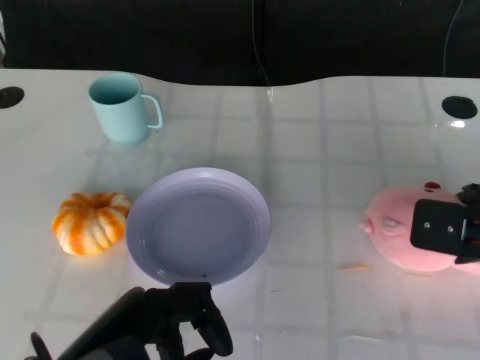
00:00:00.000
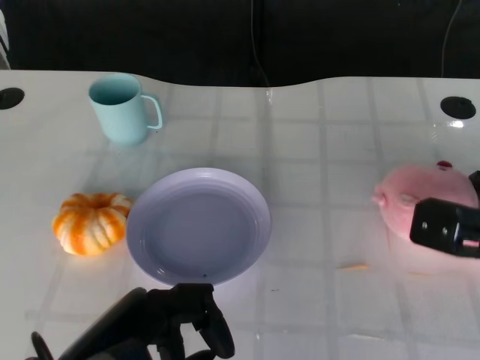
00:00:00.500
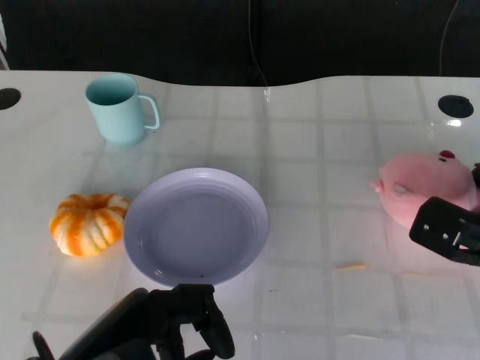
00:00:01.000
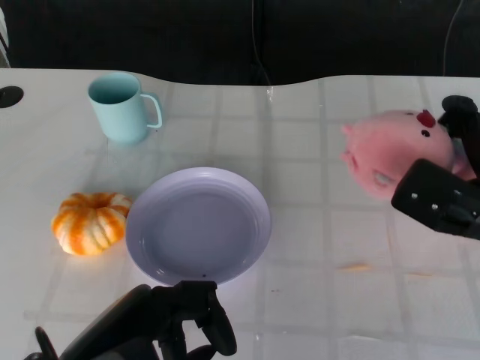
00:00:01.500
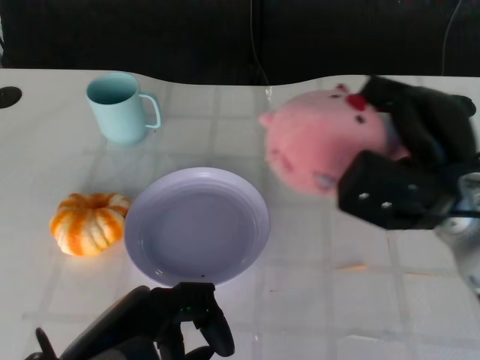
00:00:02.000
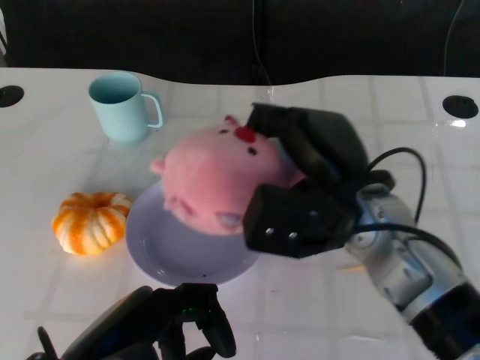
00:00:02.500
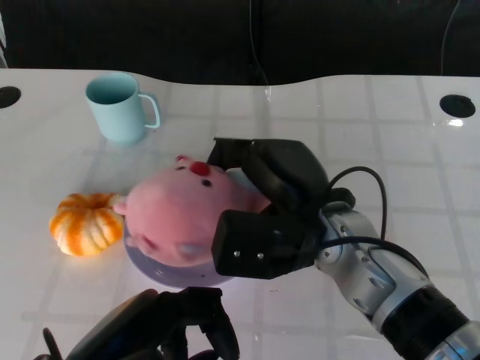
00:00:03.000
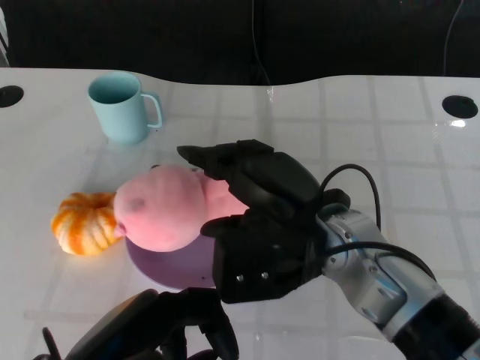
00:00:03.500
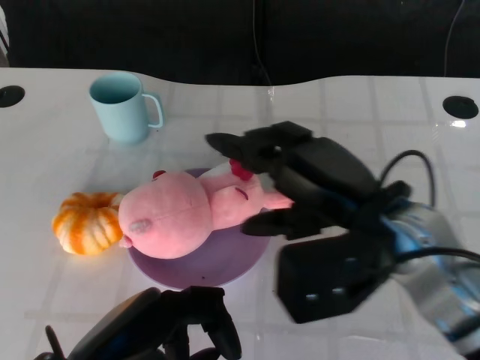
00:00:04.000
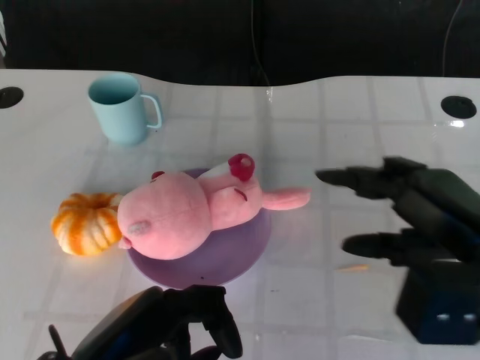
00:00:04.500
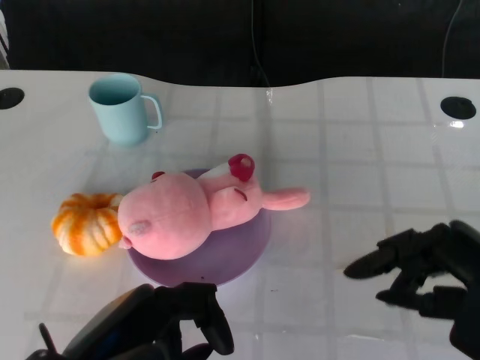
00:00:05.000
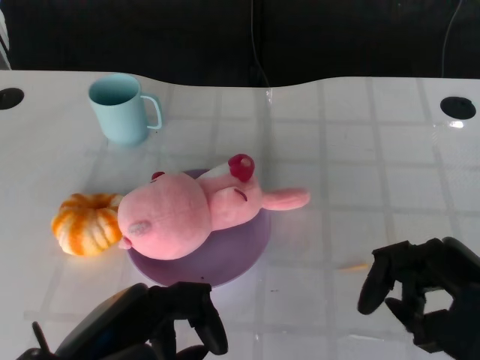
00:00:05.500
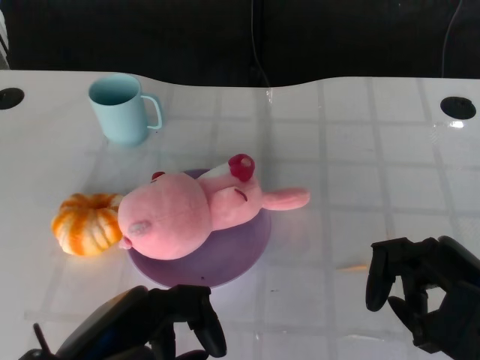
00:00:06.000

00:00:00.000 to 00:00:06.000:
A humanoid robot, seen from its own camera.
Task of the whole recording: Pick up the doll on the other side of the plate and place it into the plate.
Step, 00:00:02.000 to 00:00:04.000: Place the pink doll into the plate with the right gripper.
00:00:00.000 to 00:00:02.000: The right hand moves to the left, some 10 cm, and moves roughly 5 cm downward and comes back.
00:00:02.000 to 00:00:04.000: The right hand heads to the left, covering about 5 cm.
00:00:04.000 to 00:00:06.000: The right hand heads to the right and backward, covering about 15 cm.

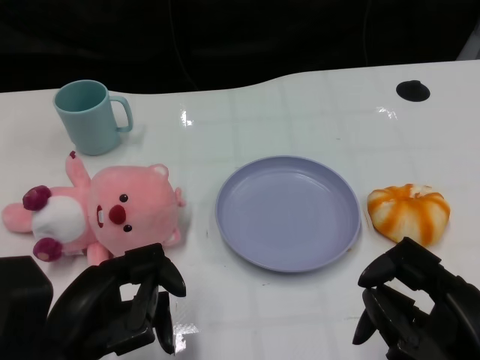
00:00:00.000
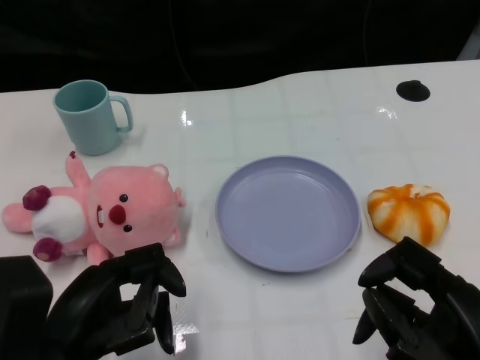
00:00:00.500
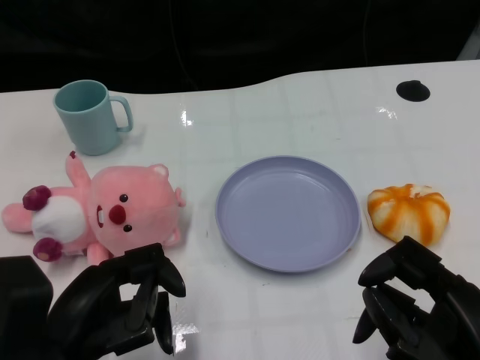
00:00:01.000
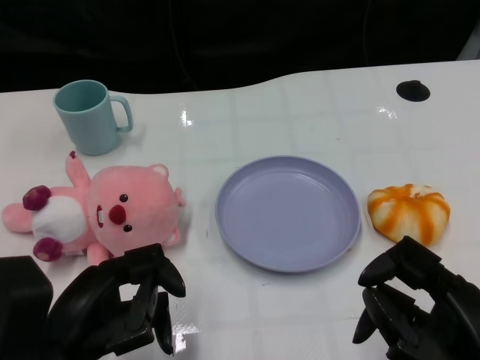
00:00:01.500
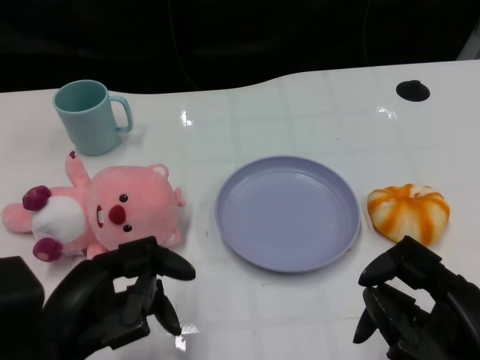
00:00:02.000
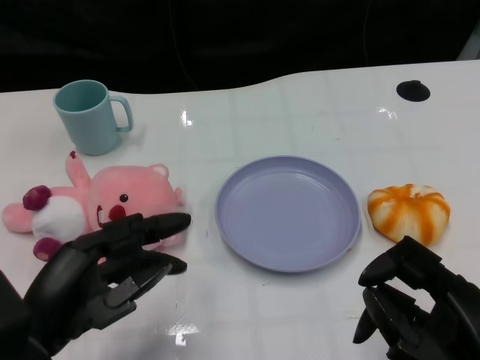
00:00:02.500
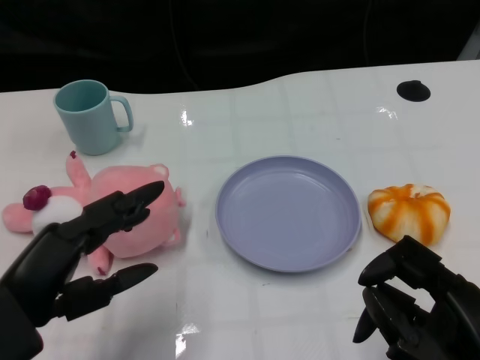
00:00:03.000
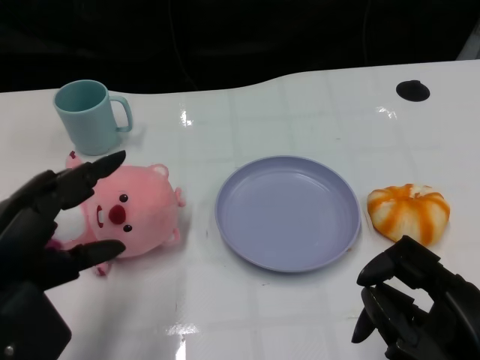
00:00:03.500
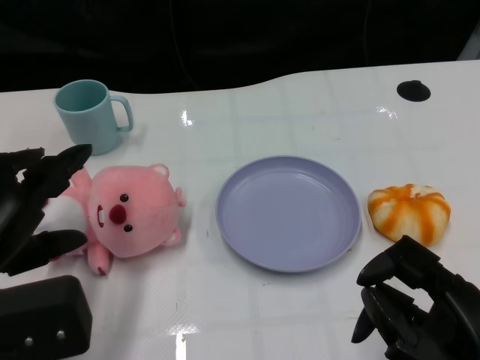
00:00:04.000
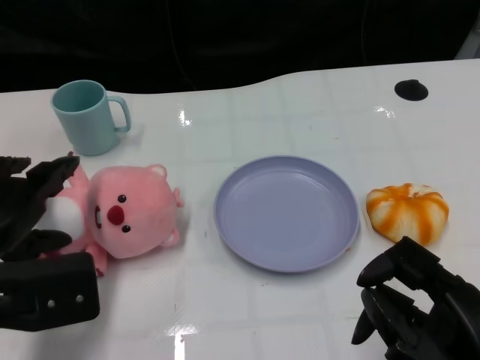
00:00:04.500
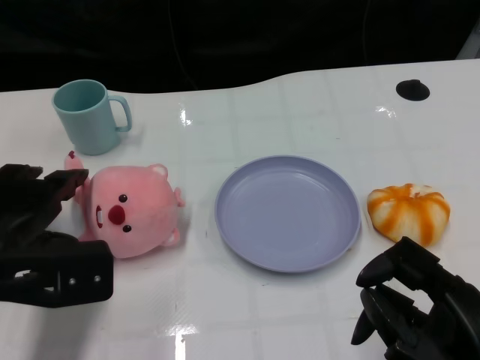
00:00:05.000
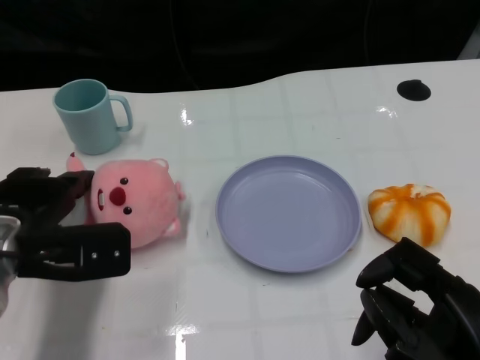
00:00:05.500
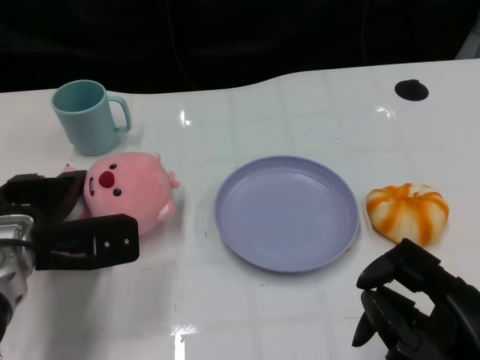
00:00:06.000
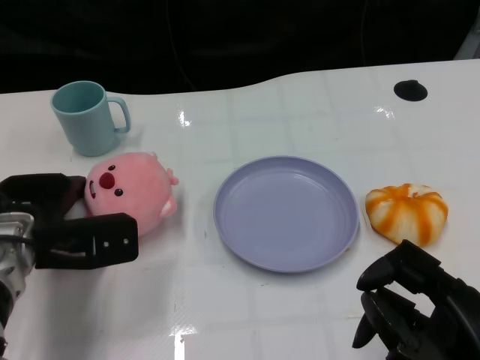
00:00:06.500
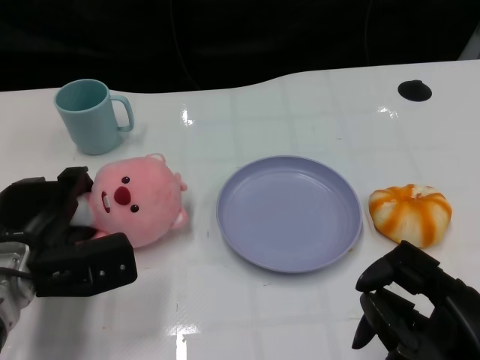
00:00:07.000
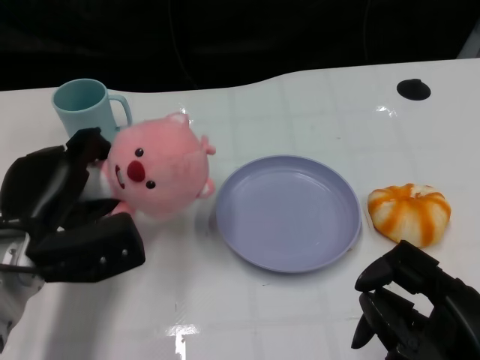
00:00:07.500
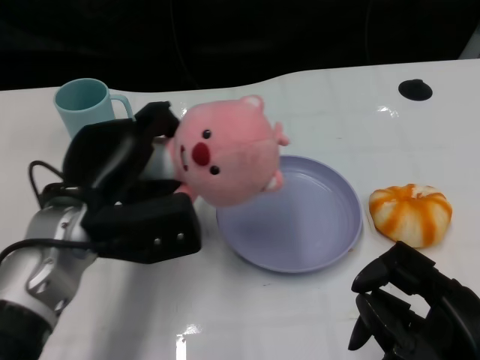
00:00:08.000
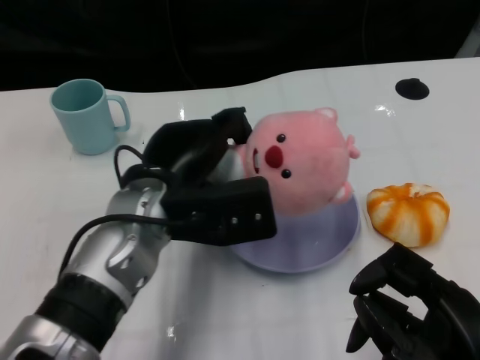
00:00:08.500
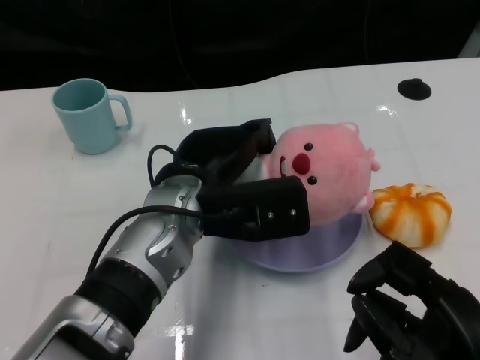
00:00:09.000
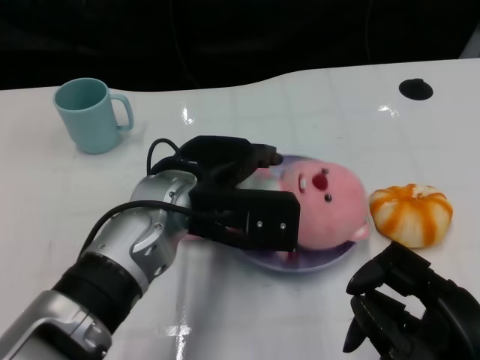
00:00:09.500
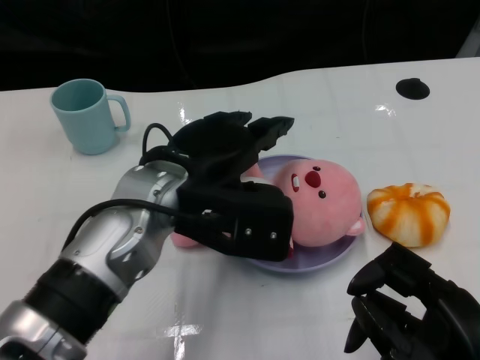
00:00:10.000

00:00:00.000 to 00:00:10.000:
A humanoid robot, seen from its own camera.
Task of the whole recording: Pick up the doll on one side of the plate and place it into the plate.
Step, 00:00:02.000 to 00:00:07.000: Grasp the pink doll with the left gripper.
Step, 00:00:07.500 to 00:00:09.500: Place the pink doll into the plate with the left gripper.
00:00:02.000 to 00:00:04.000: The left hand shifts some 5 cm upward.
00:00:04.000 to 00:00:06.000: The left hand heads forward and downward, covering about 15 cm.
00:00:06.000 to 00:00:08.000: The left hand travels to the right by roughly 5 cm.
00:00:08.000 to 00:00:10.000: The left hand goes approximately 10 cm to the right.

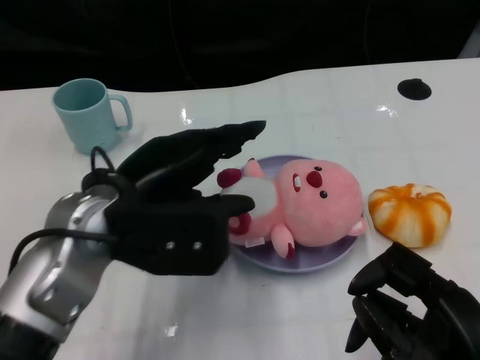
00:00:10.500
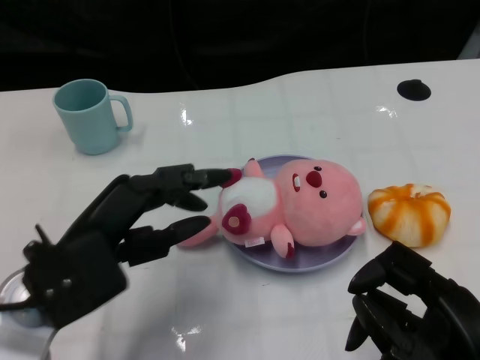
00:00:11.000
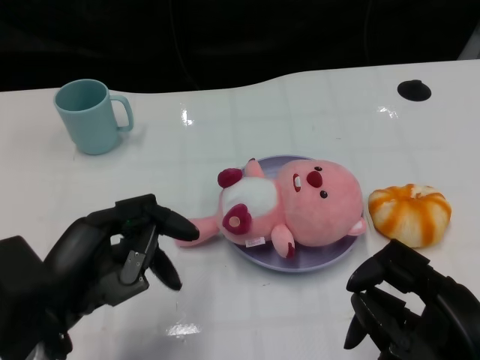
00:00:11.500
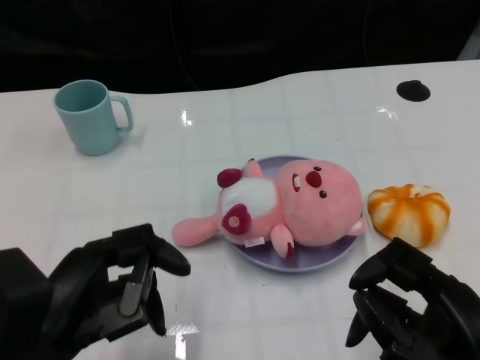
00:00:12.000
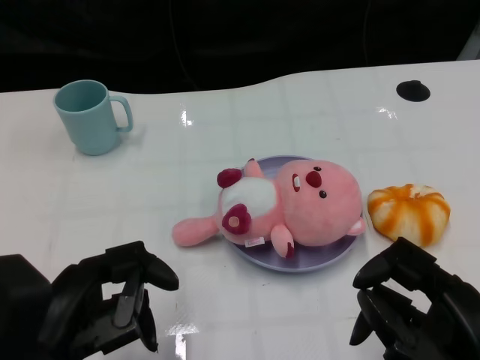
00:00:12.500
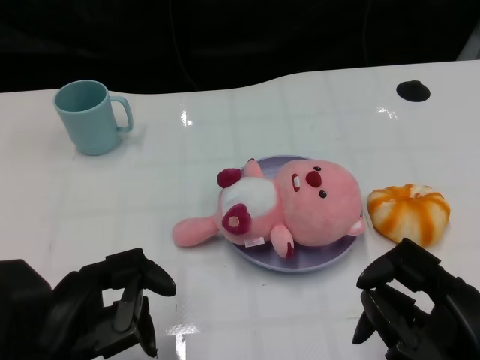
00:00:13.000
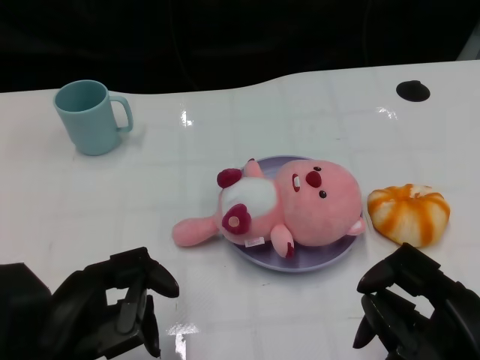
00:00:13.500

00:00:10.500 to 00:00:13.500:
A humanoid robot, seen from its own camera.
Task of the whole recording: Pick up the doll on one side of the plate and place it into the plate.
00:00:10.500 to 00:00:12.000: The left hand moves backward and to the left, approximately 15 cm.
00:00:12.000 to 00:00:13.500: The hands move only a little.

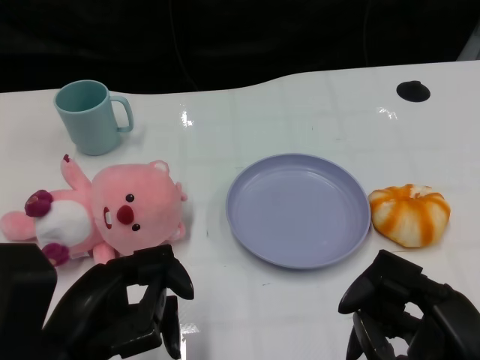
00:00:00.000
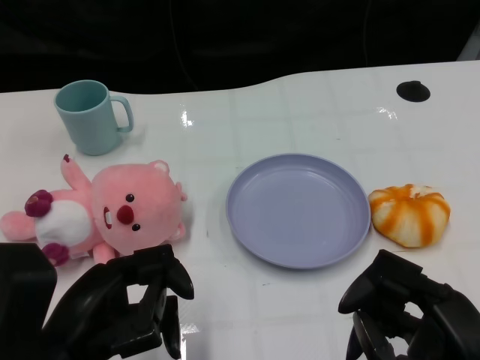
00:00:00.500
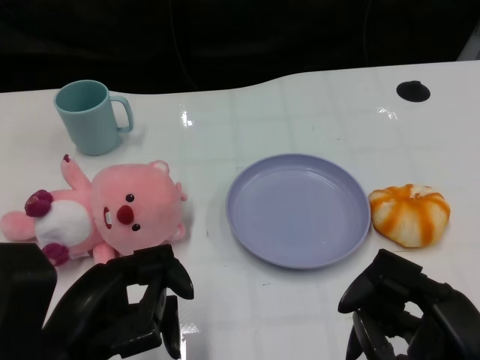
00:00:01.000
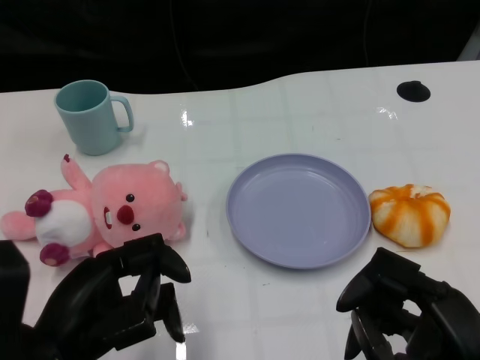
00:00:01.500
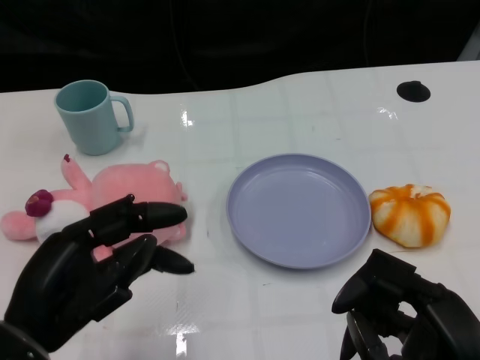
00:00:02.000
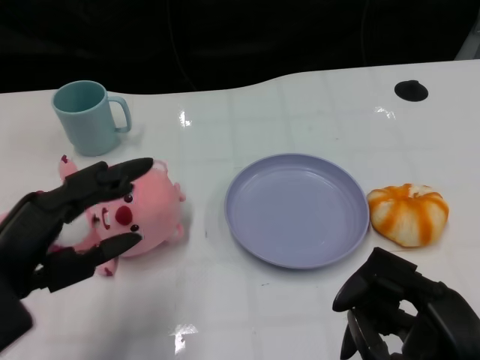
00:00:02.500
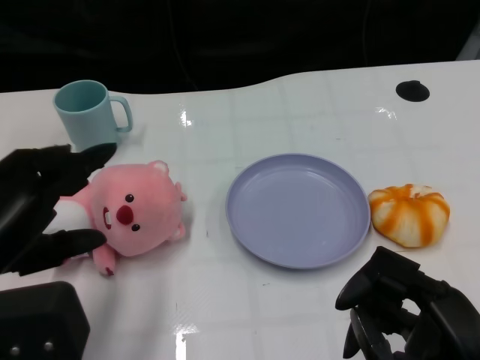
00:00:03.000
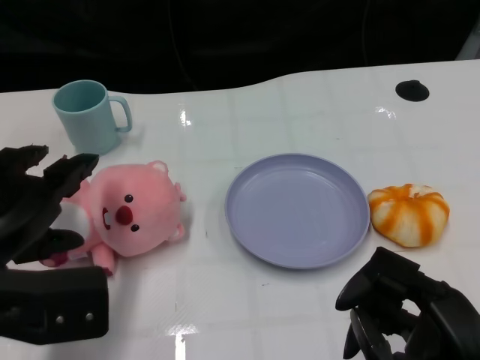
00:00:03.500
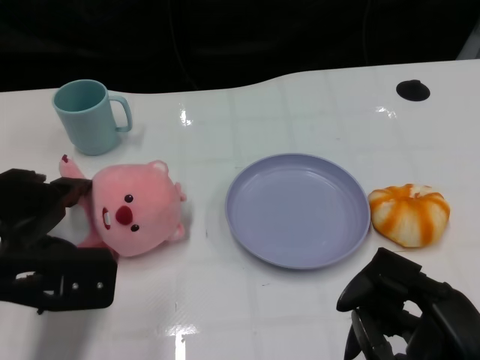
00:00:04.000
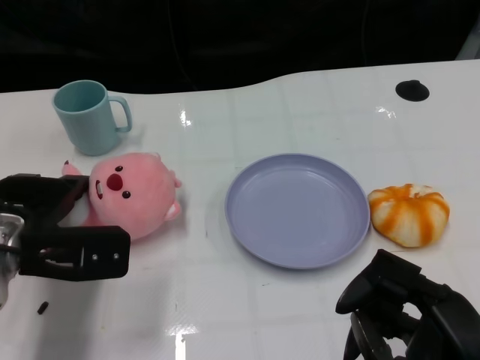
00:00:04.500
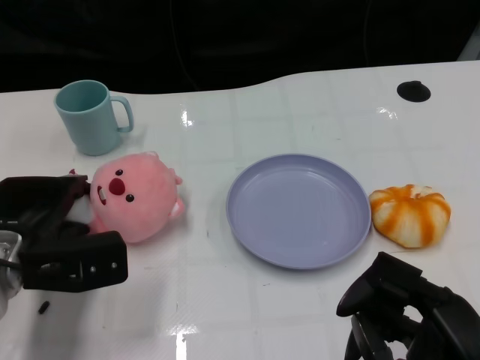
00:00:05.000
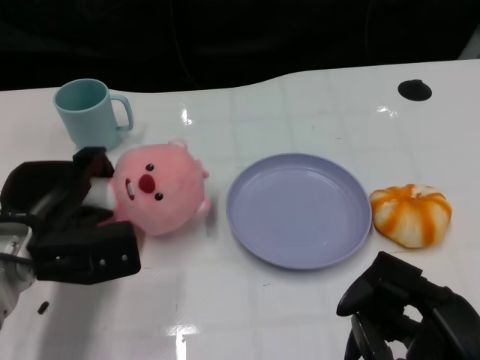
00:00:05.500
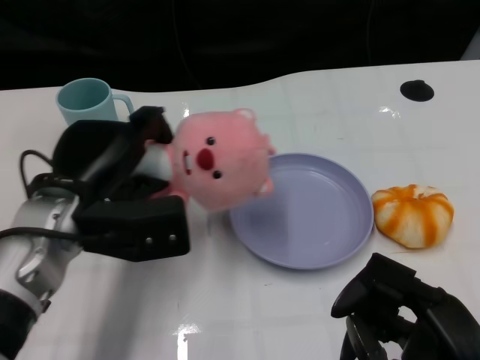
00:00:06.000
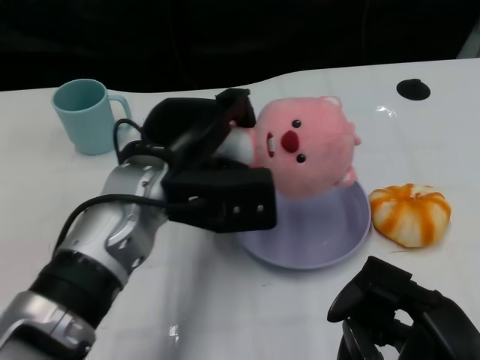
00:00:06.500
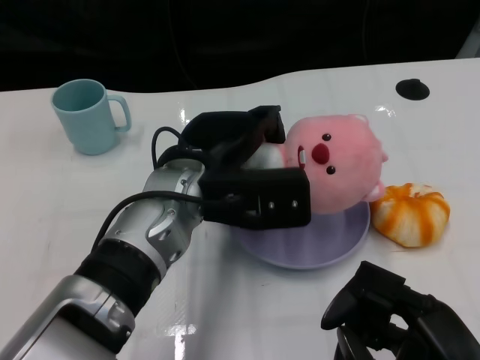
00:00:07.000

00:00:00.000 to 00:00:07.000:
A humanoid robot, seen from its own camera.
Task of the whole recording: Pick up the doll on one side of the plate and place it into the plate.
Step, 00:00:01.500 to 00:00:05.000: Grasp the pink doll with the left gripper.
00:00:02.000 to 00:00:03.500: The left hand changes place by about 5 cm.
00:00:03.500 to 00:00:05.000: The left hand heads downward and forward, covering some 10 cm.
00:00:05.000 to 00:00:07.000: The left hand goes roughly 20 cm to the right and upward.
